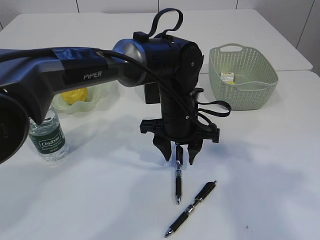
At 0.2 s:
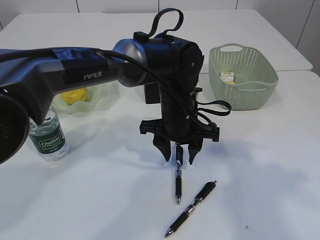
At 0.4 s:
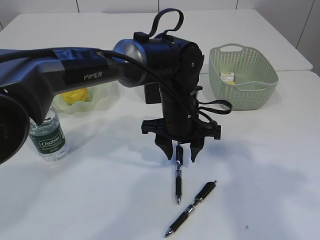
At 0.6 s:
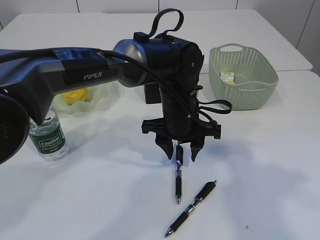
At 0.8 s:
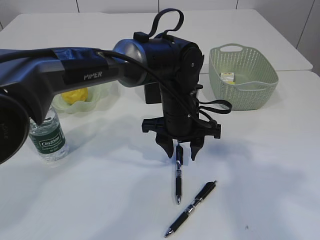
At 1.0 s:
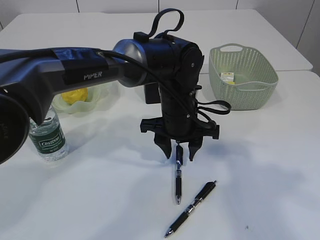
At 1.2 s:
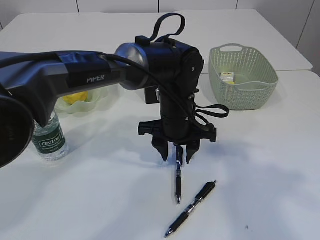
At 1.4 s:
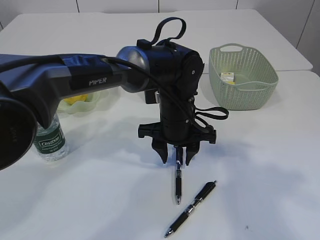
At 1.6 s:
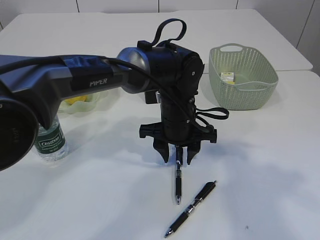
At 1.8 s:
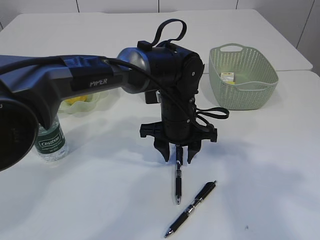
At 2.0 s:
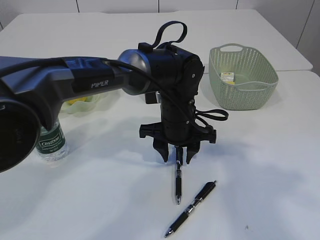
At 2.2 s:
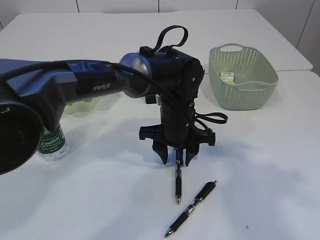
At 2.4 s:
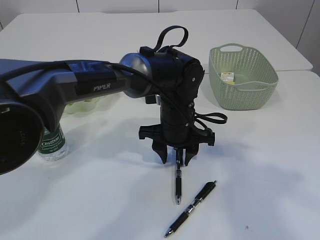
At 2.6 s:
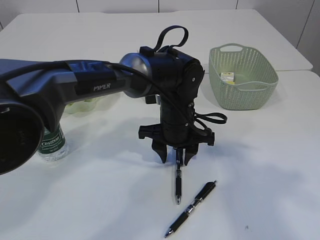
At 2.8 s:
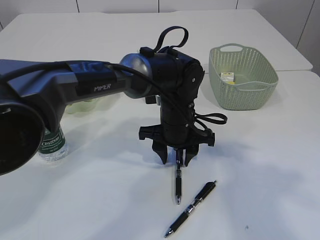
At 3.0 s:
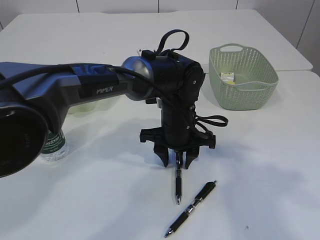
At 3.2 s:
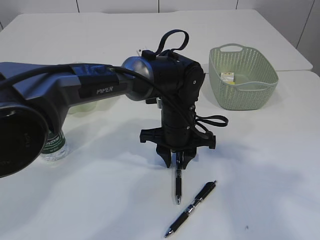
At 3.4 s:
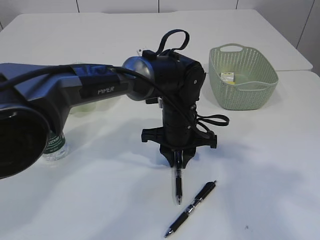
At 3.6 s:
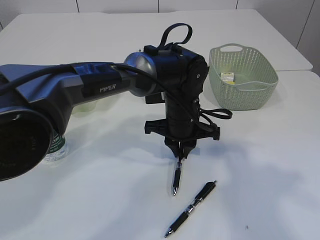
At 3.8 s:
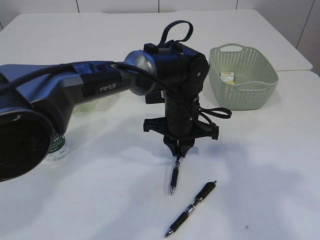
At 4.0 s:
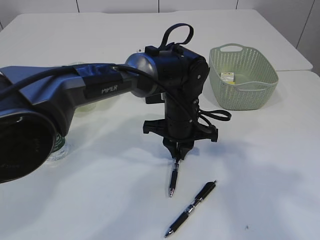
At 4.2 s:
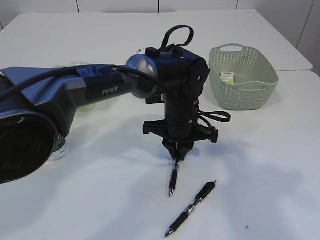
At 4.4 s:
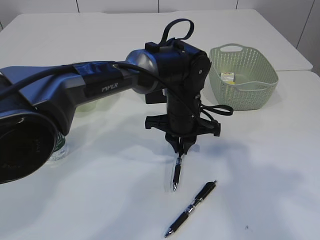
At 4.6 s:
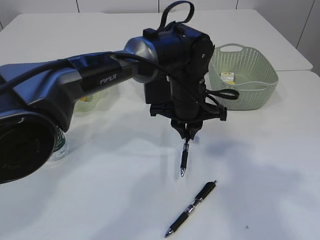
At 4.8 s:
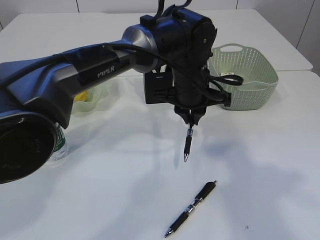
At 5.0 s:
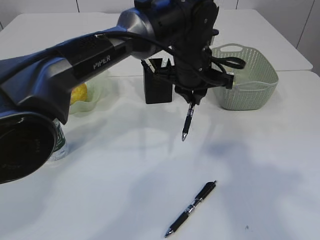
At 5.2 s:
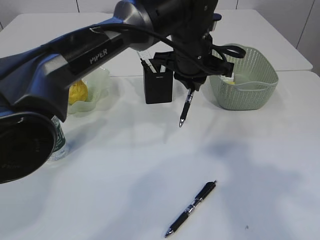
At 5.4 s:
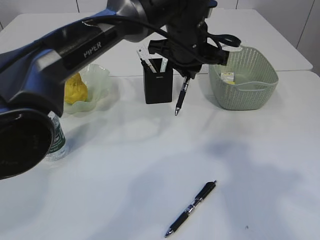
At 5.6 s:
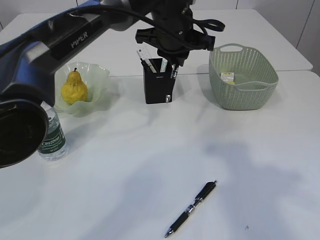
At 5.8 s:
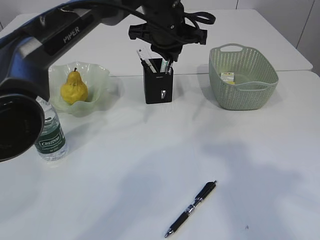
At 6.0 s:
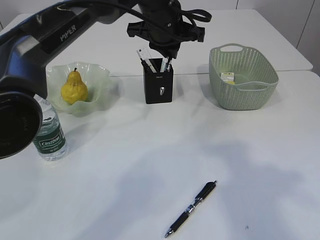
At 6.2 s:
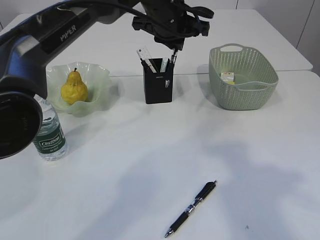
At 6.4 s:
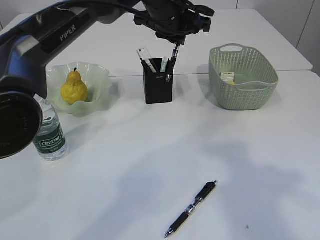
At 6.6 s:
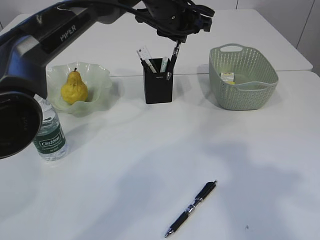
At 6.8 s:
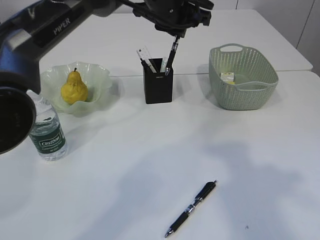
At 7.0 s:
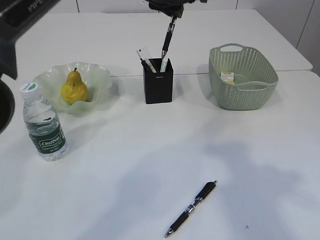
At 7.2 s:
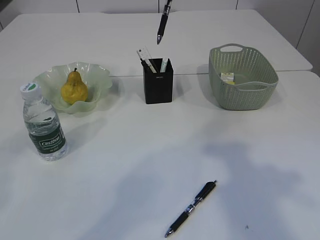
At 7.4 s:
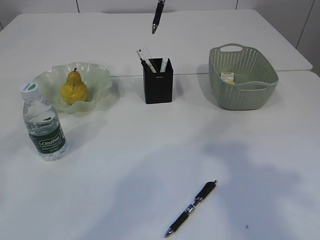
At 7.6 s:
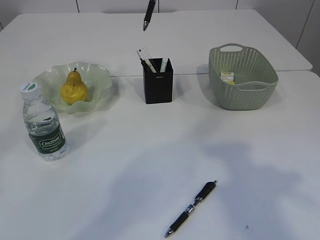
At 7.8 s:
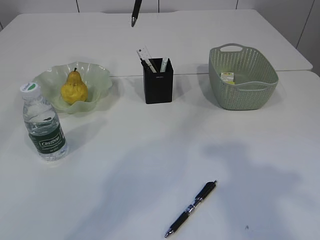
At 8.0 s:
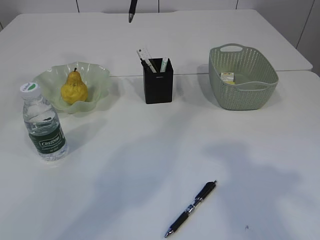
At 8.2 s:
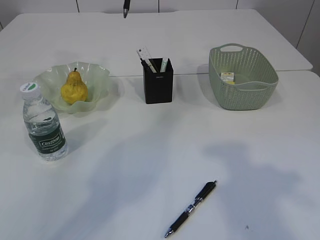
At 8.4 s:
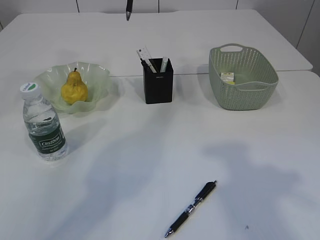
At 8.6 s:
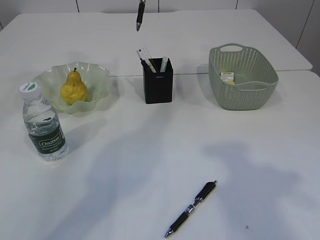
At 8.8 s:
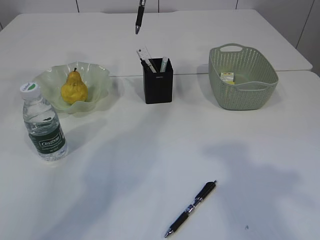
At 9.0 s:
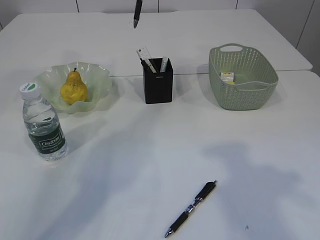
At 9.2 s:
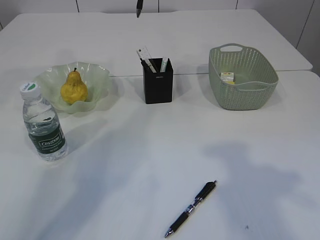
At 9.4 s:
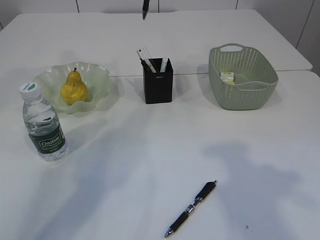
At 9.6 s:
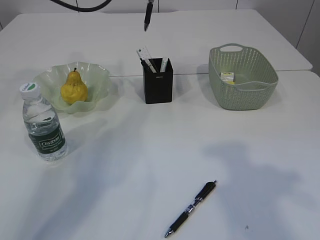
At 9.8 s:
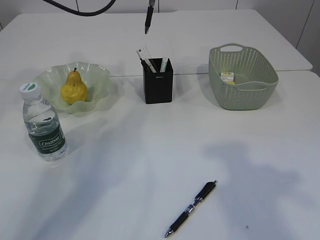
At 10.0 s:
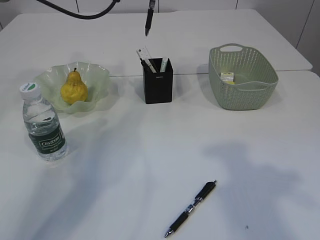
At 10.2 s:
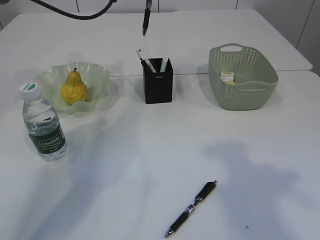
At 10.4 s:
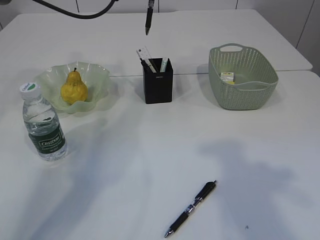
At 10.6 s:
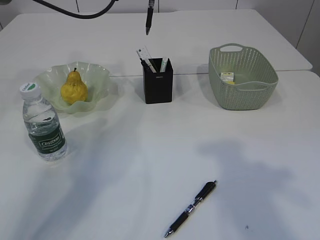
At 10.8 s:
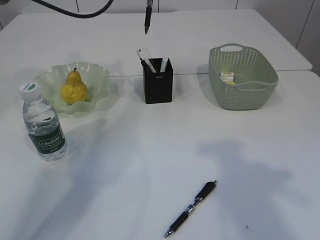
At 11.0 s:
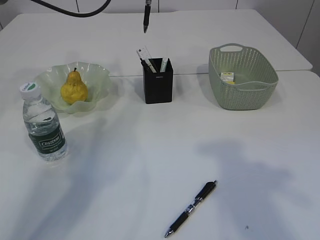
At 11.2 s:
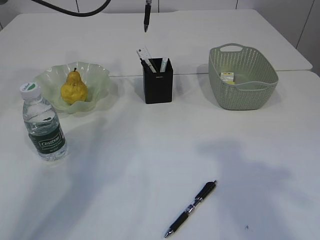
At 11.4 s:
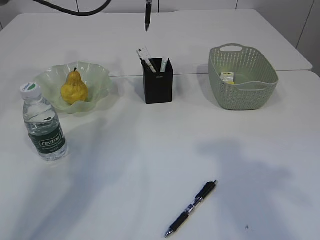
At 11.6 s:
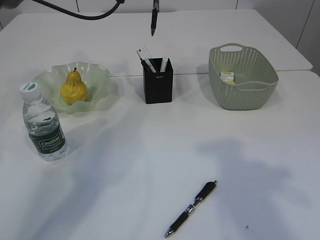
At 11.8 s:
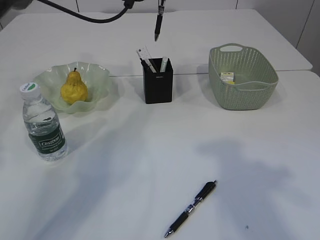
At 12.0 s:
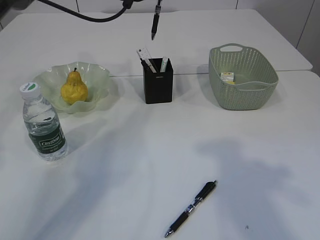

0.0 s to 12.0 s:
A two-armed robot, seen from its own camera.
Step, 0.0 to 4.8 s: Pick up the pen with left arm.
0.0 to 3.0 s: The grippers move only a little.
3.0 to 4.4 s: The left gripper closes up.
4.4 to 6.0 s: The left gripper shifts approximately 15 cm upward and forward.
6.0 to 7.6 s: The left gripper moves upward and to the left, some 15 cm.
7.6 to 9.0 s: The left gripper goes approximately 10 cm to the left and forward.
9.0 to 10.4 s: The grippers move only a little.
10.4 to 12.0 s: The grippers move only a little.

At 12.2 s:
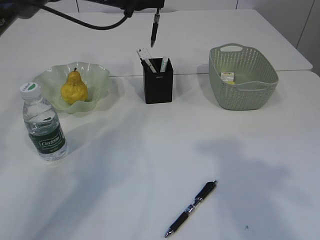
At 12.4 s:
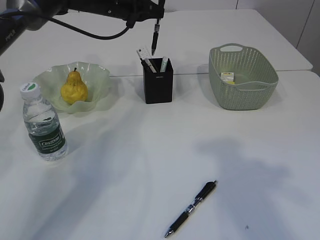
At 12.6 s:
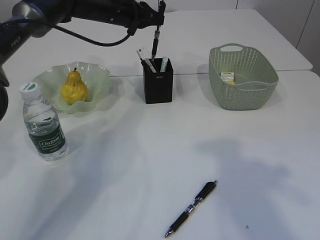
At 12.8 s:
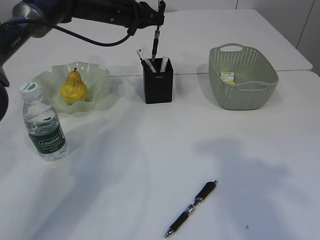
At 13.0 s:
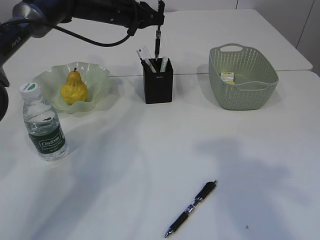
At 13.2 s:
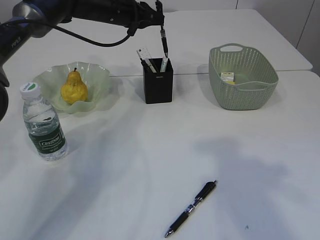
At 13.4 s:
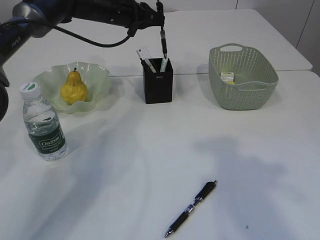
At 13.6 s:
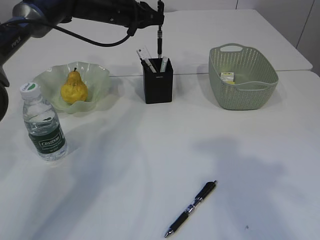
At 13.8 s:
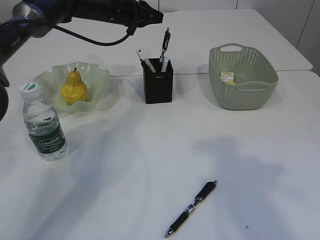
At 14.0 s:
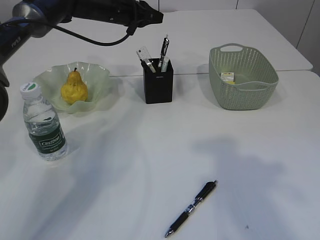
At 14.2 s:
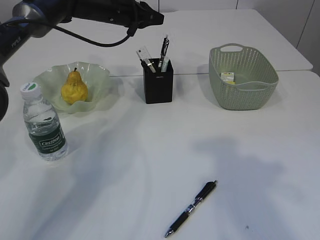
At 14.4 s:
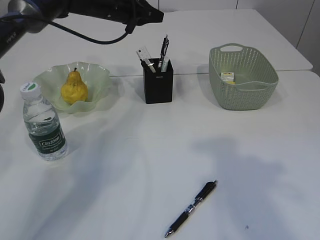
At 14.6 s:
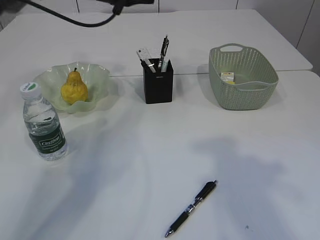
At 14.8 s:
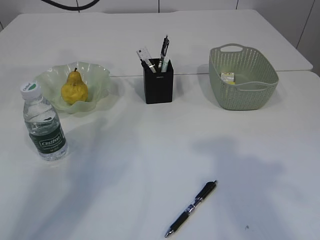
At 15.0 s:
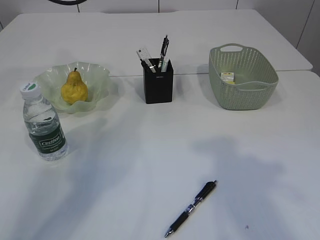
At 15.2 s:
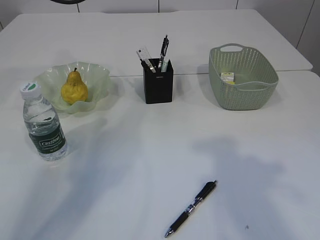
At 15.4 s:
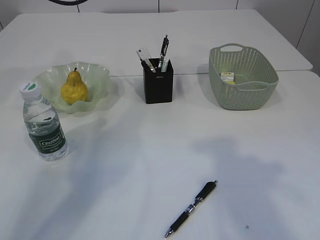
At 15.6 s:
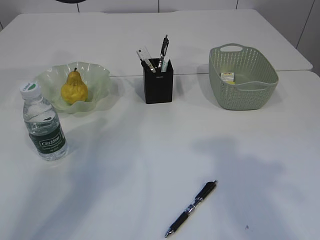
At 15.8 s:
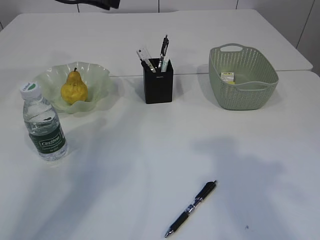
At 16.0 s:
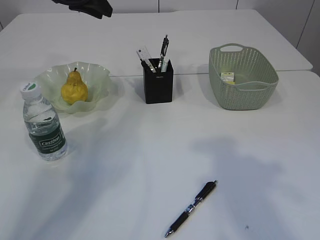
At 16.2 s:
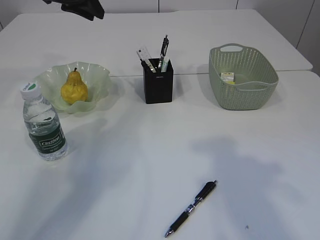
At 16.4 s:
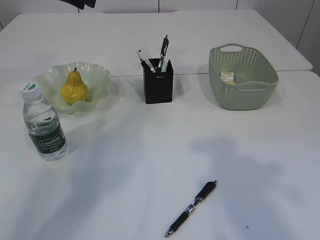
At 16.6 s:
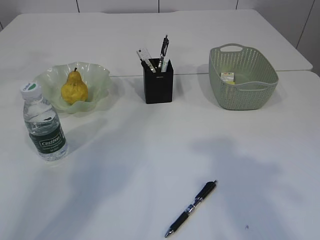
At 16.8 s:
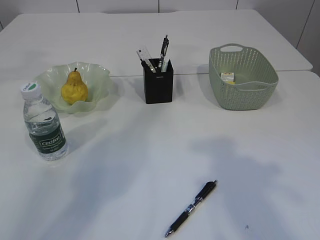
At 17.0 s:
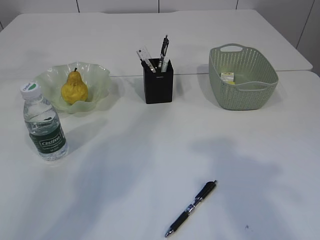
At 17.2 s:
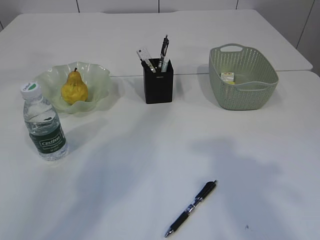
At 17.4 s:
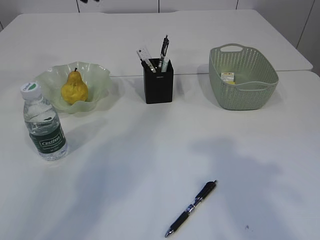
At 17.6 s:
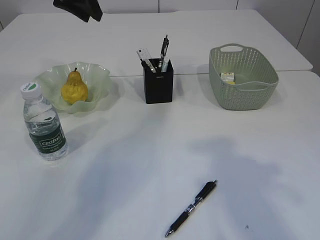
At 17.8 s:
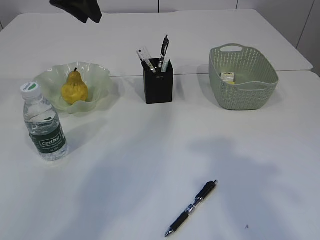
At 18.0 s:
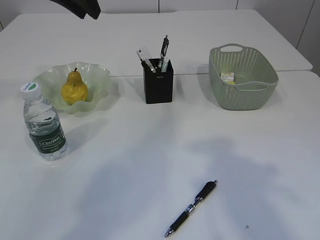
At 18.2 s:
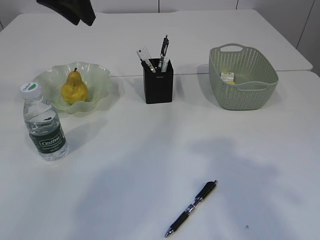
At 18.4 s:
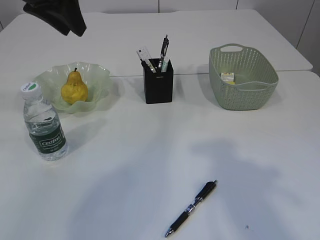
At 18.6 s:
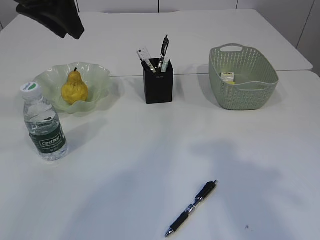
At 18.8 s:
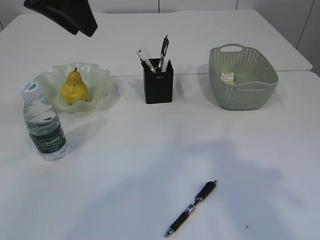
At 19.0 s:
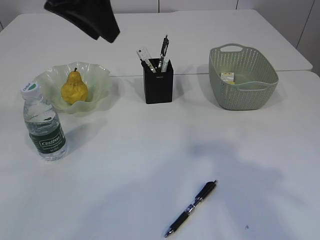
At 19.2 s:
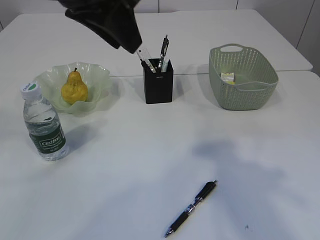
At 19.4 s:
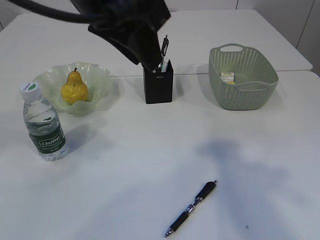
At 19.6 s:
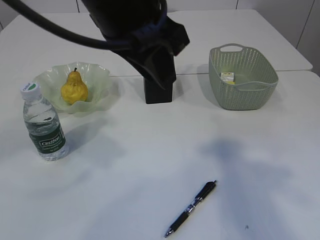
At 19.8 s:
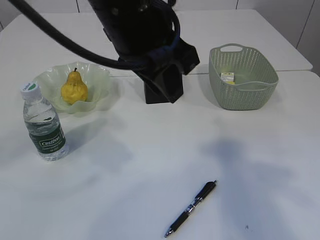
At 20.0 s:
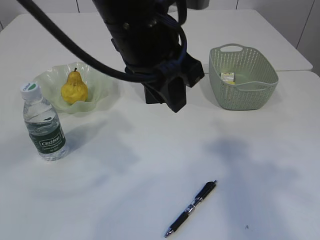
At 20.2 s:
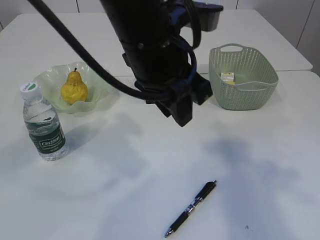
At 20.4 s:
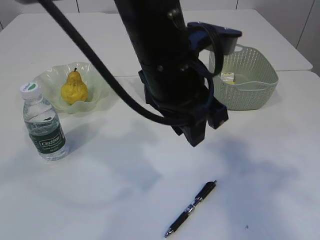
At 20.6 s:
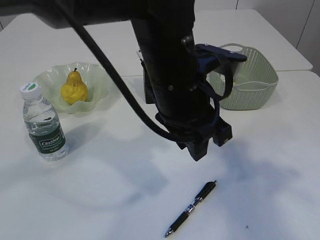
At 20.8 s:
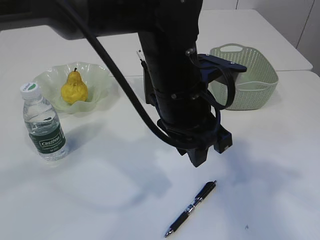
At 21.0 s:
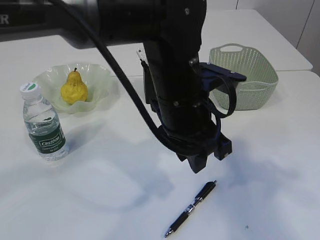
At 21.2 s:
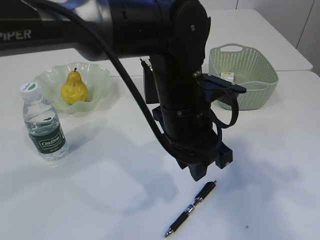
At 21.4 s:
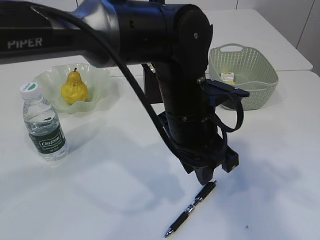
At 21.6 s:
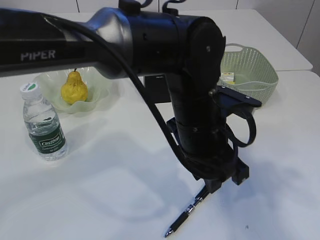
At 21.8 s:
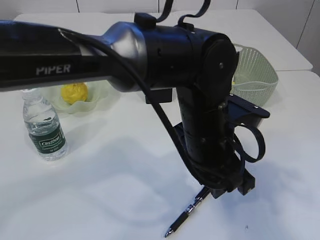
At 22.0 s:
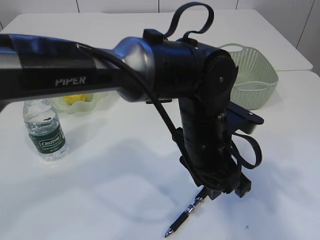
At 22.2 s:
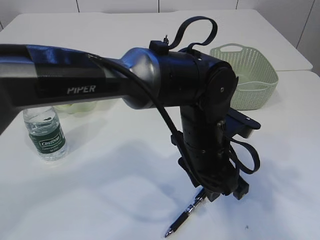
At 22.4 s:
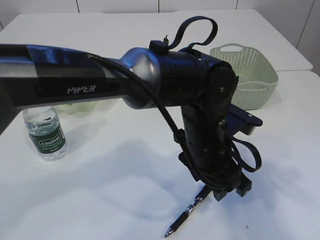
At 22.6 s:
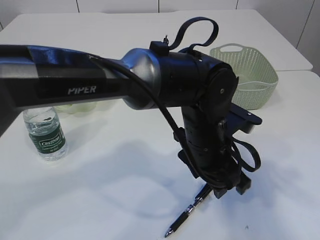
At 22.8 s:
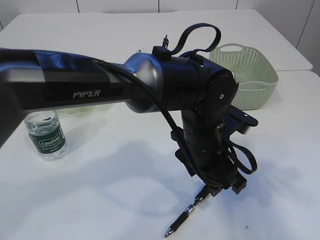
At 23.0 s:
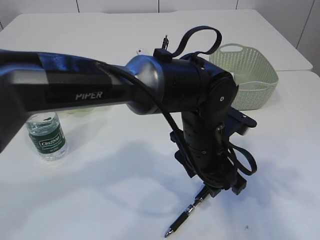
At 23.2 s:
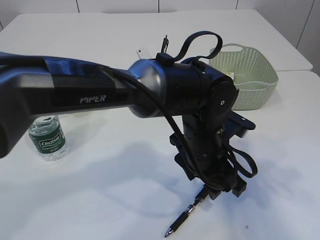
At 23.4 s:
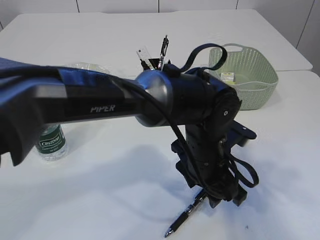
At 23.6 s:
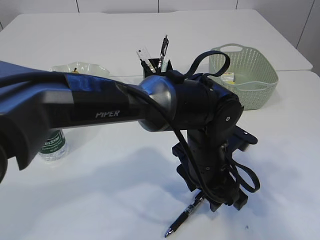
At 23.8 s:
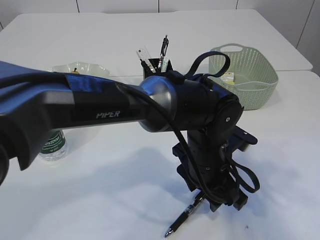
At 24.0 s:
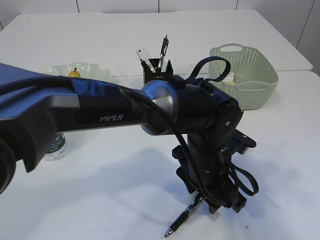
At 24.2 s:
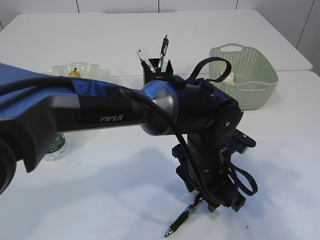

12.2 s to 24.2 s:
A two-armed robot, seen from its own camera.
12.2 to 13.8 s: The grippers move only a little.
13.8 to 15.2 s: The left gripper is displaced upward and backward by about 10 cm.
16.6 to 18.2 s: The left gripper moves backward, some 10 cm.
18.2 to 19.8 s: The left gripper heads to the right and backward, covering roughly 20 cm.
19.8 to 21.2 s: The left gripper travels downward and to the right by roughly 15 cm.
21.2 to 22.6 s: The left gripper goes some 5 cm downward, and opens its fingers.
